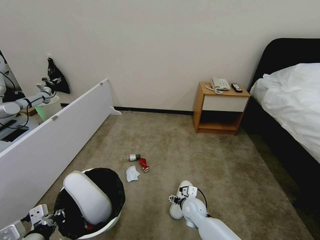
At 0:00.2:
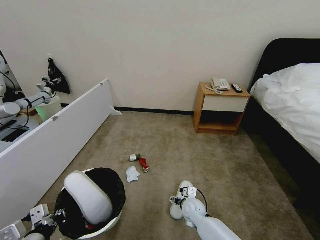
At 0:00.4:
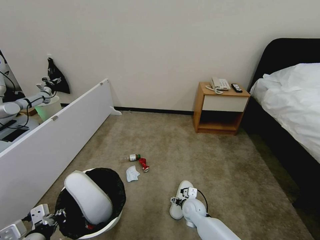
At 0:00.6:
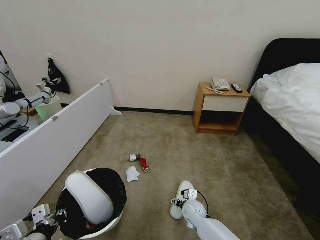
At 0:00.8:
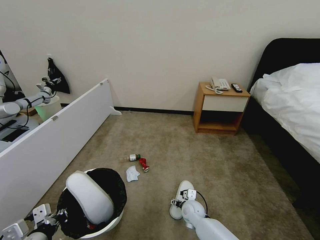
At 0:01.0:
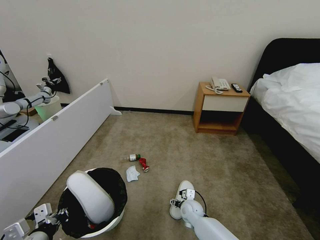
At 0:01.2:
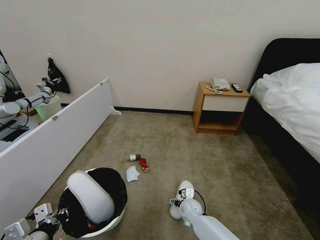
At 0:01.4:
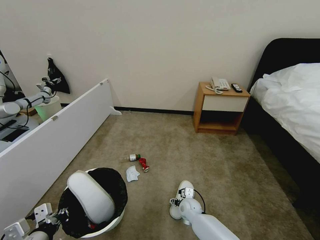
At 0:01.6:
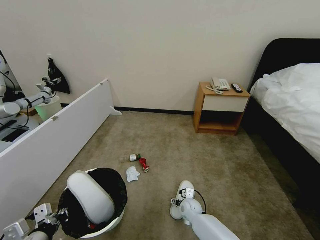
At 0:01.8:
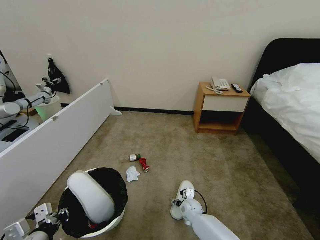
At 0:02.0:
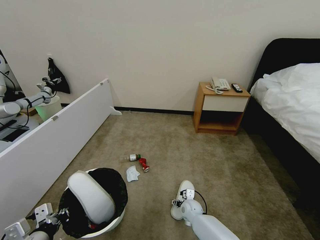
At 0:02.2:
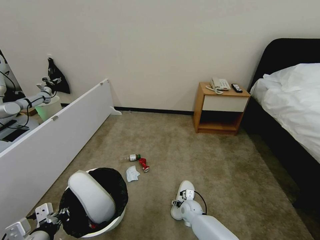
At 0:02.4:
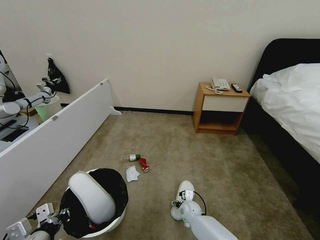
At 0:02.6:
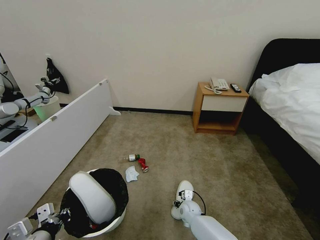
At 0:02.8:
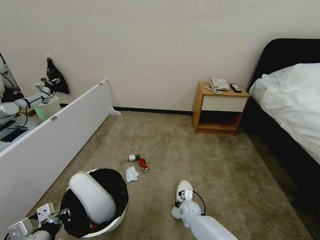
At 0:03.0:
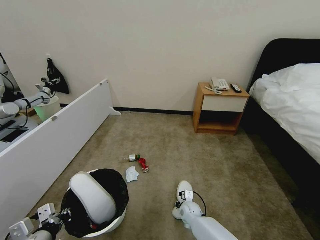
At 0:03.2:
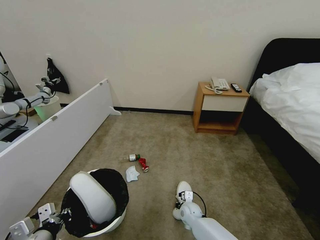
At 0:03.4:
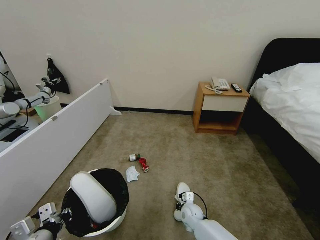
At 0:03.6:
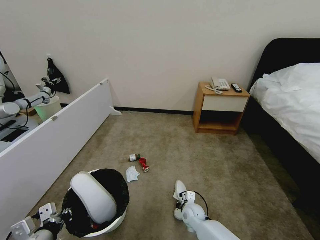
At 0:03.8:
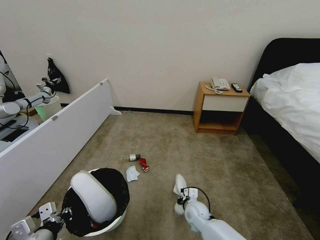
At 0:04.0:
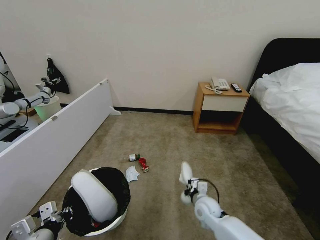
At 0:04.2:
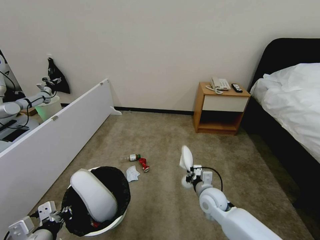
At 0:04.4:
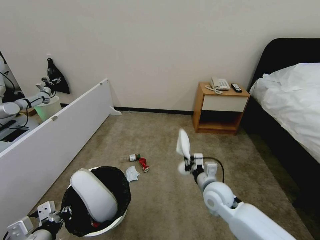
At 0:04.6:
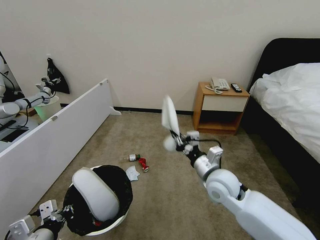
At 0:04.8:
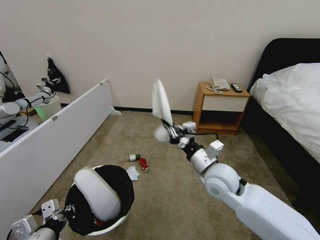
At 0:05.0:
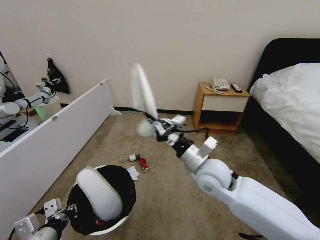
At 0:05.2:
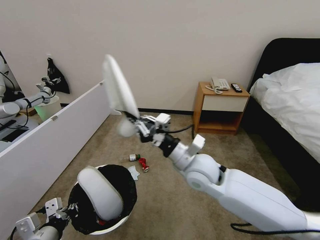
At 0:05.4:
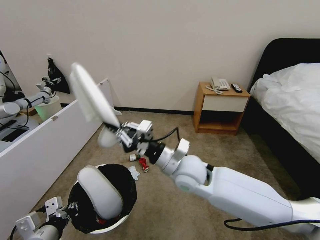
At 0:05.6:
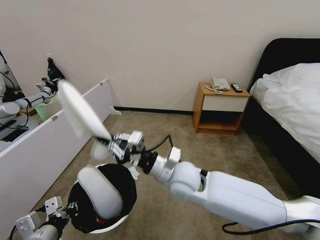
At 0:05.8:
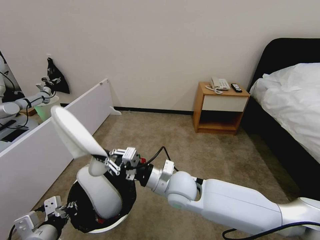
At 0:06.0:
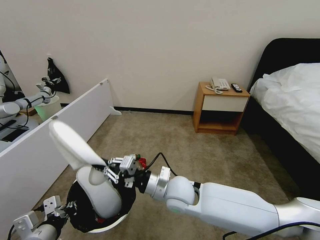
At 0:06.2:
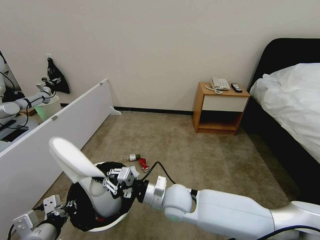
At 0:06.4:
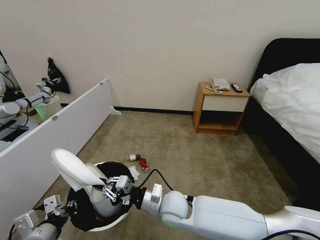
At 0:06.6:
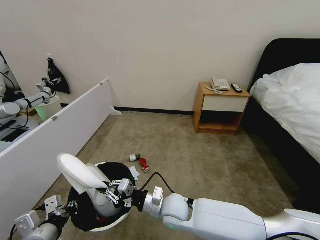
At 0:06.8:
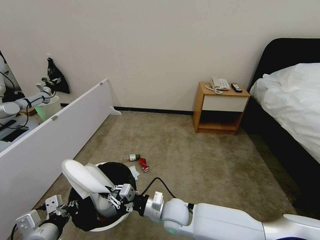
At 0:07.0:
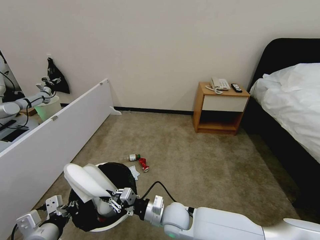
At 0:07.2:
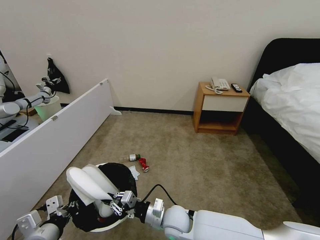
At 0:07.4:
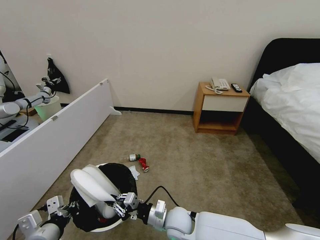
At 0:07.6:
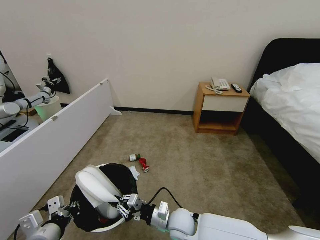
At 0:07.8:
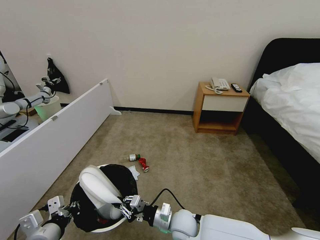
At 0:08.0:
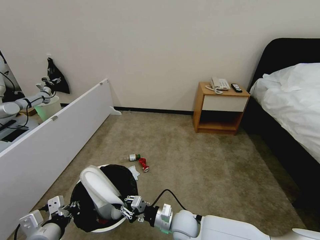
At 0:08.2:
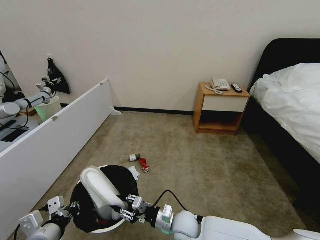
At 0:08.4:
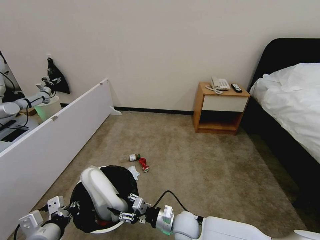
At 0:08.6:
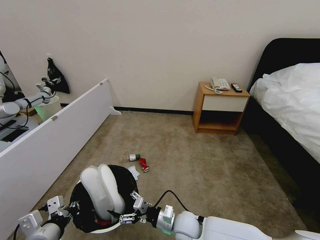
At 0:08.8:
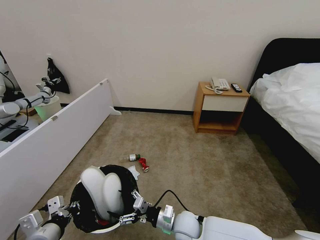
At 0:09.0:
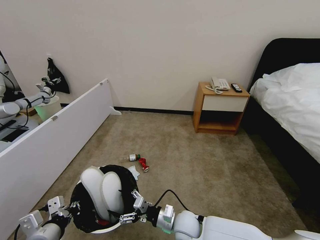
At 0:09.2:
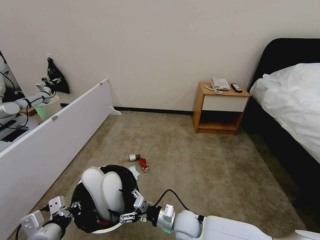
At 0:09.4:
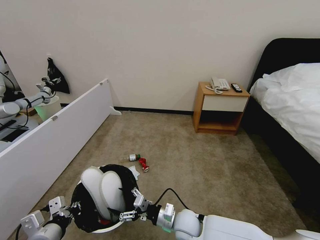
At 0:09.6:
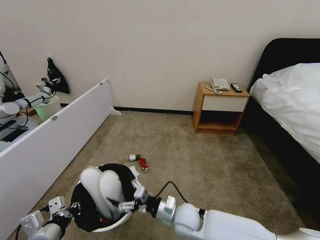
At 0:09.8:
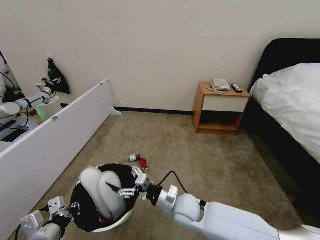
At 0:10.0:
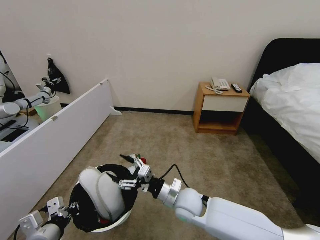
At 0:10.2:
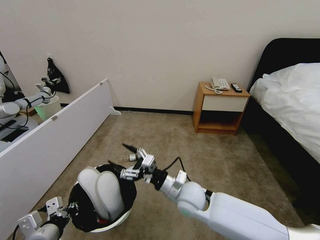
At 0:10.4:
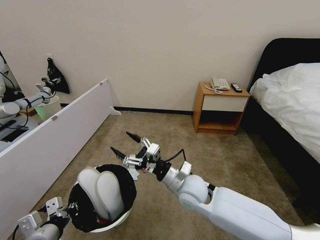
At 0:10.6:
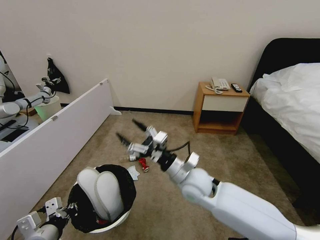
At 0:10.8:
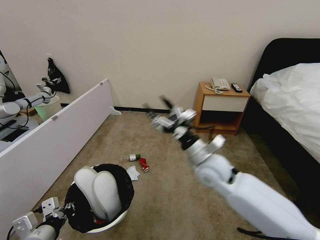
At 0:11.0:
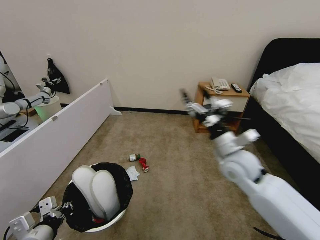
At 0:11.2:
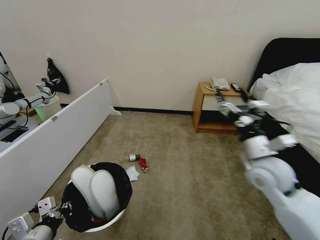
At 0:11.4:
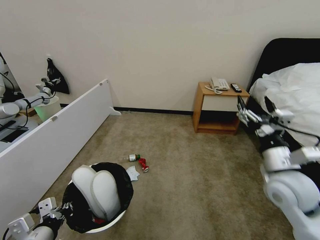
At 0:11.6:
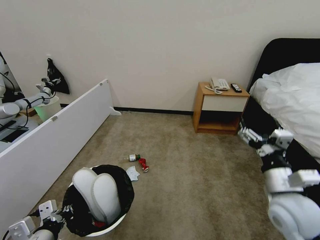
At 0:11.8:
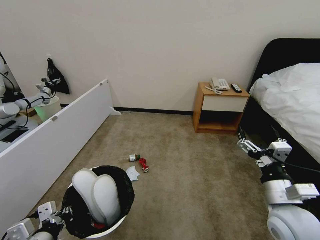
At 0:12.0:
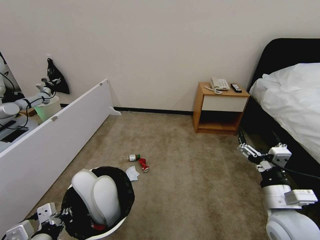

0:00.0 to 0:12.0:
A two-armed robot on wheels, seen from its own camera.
Task of the whole recording: Pick up the trash bin and place the garbage on the floor into it.
0:00.0 to 0:01.6: The right gripper is displaced downward by approximately 5 cm.
0:01.6 to 0:03.0: The right gripper closes up.
0:03.0 to 0:04.4: The right gripper moves upward, approximately 20 cm.
0:04.4 to 0:06.0: The right gripper moves to the left, roughly 15 cm.
0:06.0 to 0:07.6: The right gripper shifts some 15 cm downward.
0:07.6 to 0:09.0: The right gripper opens.
0:09.0 to 0:10.4: The right gripper goes about 15 cm upward.
0:10.4 to 0:12.0: The right gripper travels to the right and backward by some 25 cm.

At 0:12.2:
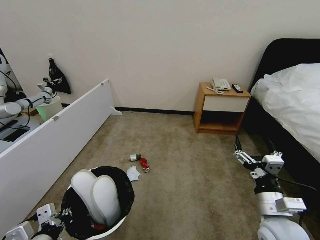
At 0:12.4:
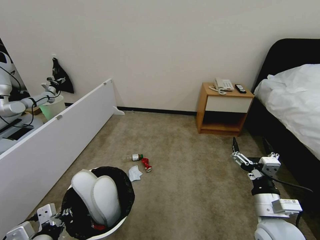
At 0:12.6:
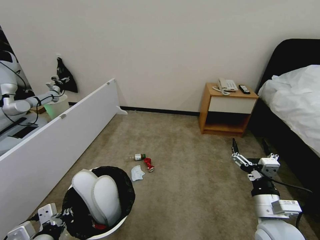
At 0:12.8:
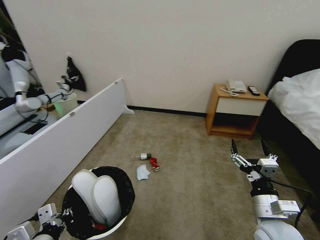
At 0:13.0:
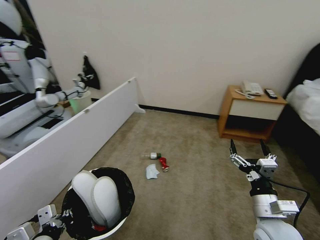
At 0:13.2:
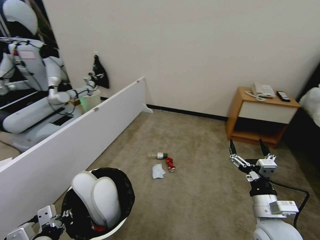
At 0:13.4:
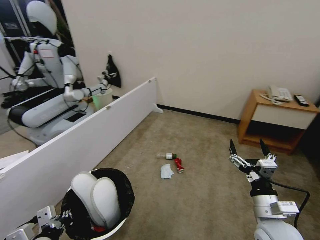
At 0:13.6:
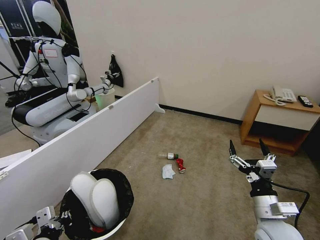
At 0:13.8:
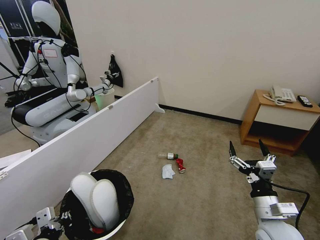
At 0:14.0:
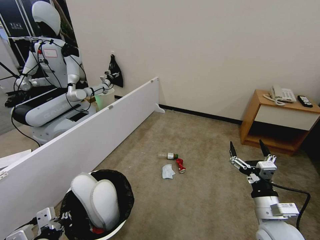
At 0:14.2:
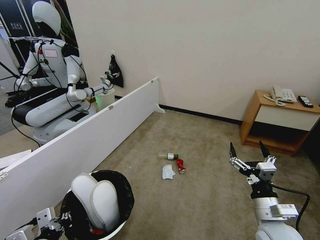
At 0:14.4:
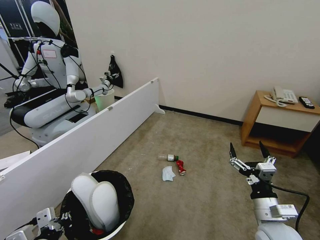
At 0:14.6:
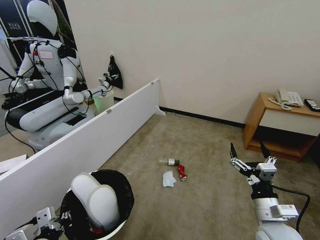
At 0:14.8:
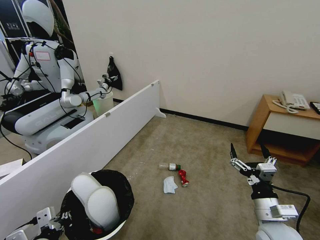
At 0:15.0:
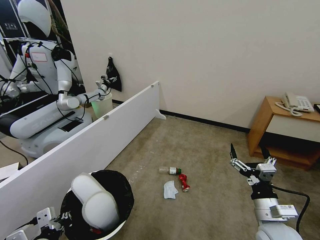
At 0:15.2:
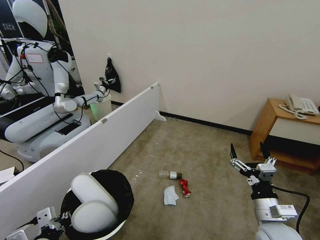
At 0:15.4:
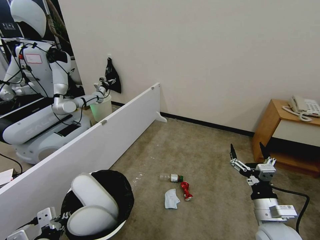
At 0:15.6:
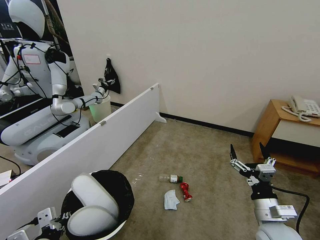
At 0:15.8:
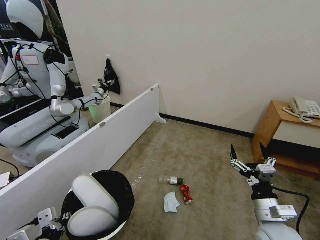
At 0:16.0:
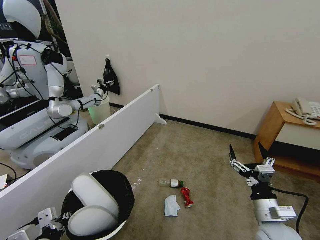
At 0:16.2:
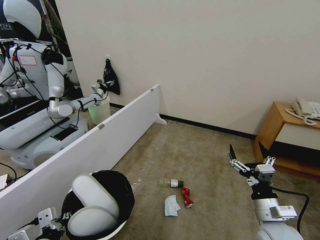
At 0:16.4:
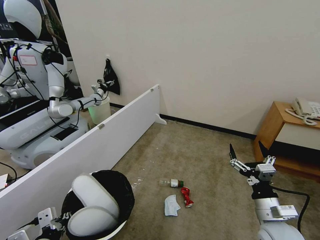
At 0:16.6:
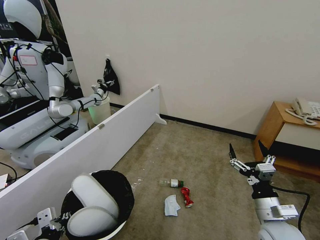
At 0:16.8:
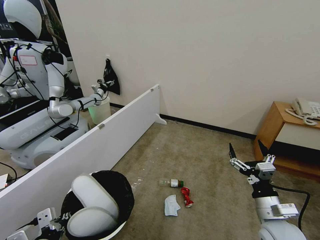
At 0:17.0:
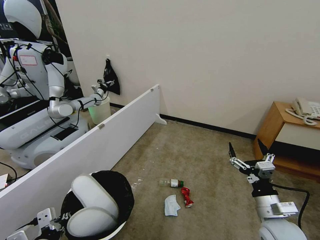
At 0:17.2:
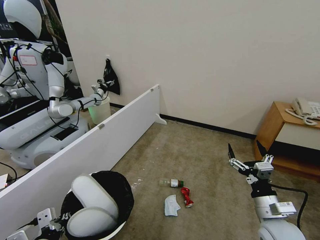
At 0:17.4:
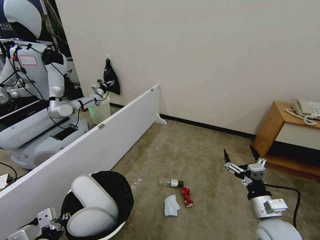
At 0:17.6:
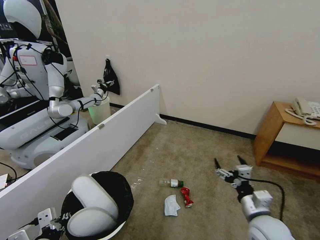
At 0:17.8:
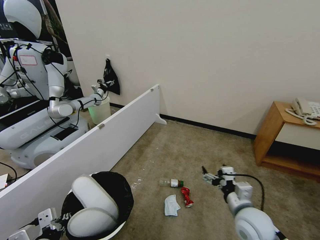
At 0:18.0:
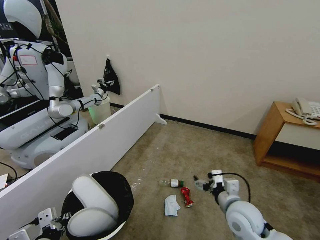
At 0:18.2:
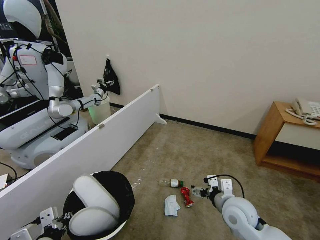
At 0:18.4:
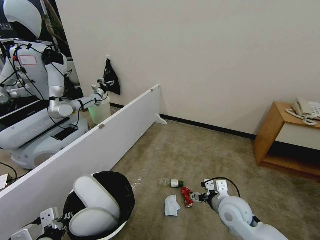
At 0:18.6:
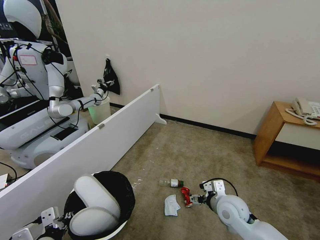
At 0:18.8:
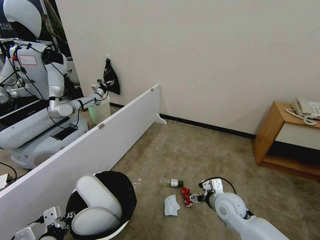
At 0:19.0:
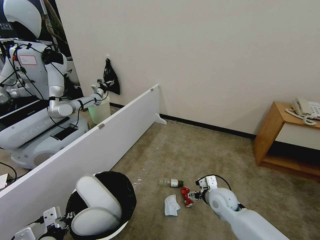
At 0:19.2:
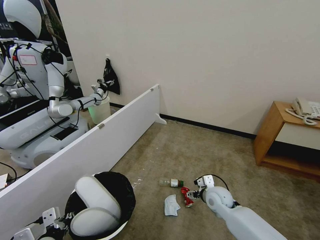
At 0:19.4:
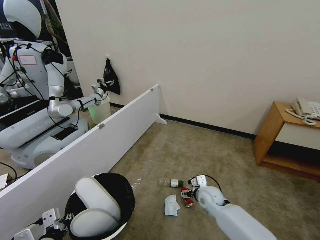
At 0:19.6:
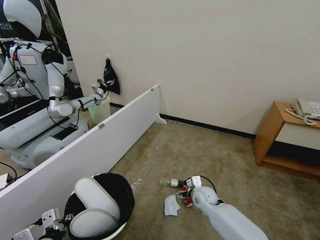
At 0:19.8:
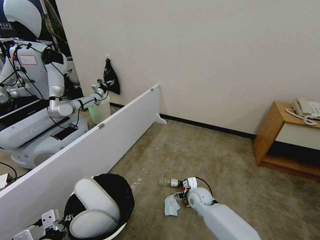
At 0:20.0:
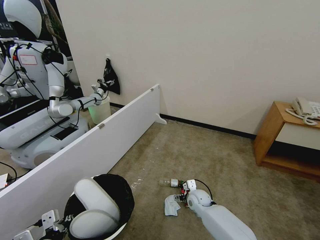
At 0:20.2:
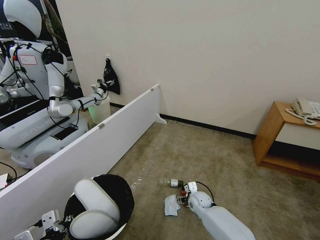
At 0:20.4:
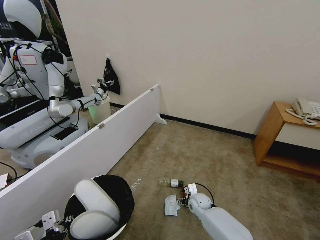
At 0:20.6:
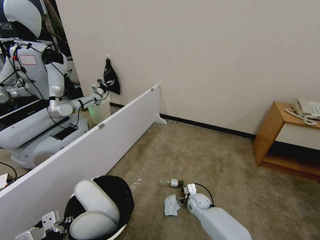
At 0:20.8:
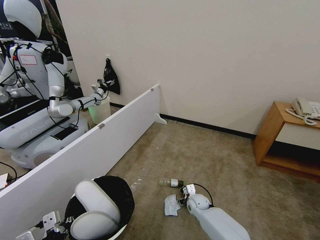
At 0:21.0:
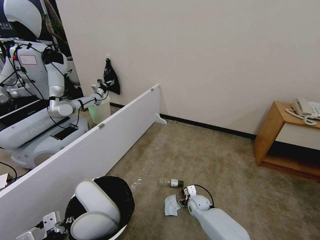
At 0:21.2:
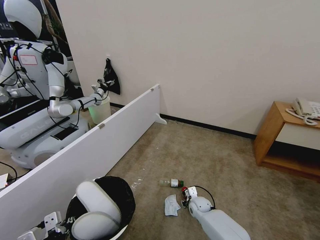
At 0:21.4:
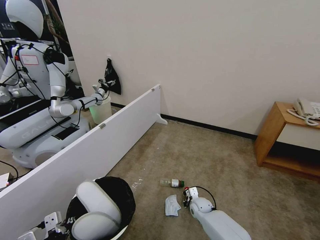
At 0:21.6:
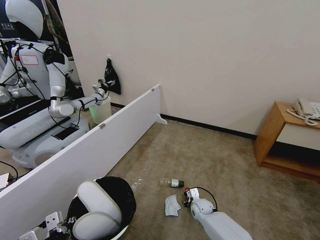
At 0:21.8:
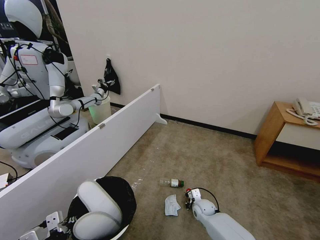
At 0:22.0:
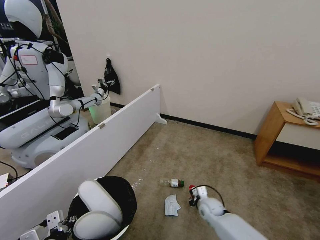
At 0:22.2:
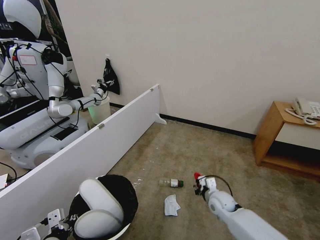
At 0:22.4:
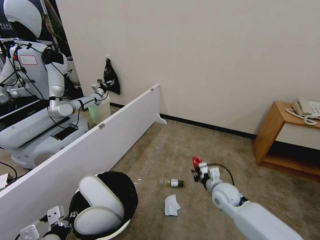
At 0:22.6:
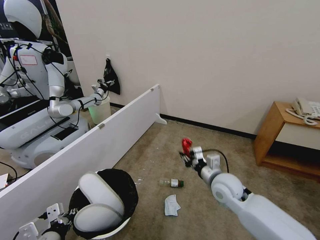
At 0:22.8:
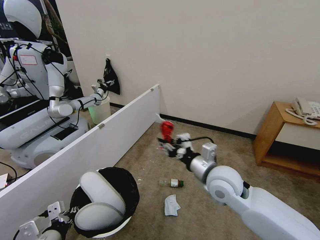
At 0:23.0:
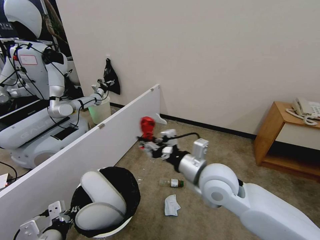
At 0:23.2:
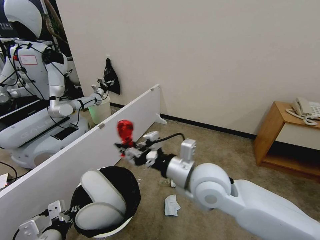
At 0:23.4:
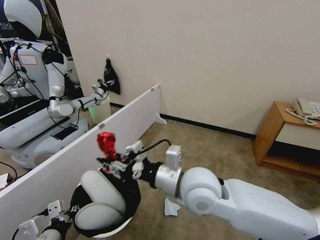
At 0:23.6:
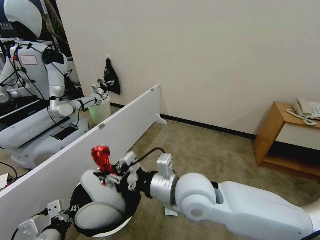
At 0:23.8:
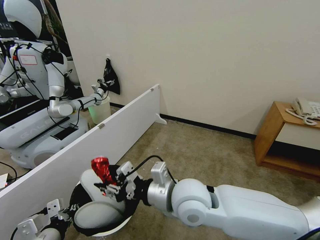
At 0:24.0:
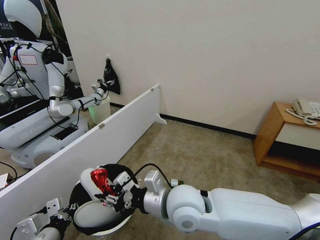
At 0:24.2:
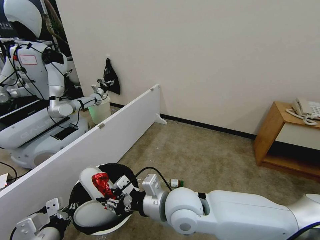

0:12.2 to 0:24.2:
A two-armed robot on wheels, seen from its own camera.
Task of the whole recording: Pick up the trash bin and place the garbage on the floor into it.
0:15.2 to 0:16.6: Both grippers stay about where they are.
0:16.6 to 0:18.2: The right gripper shifts some 10 cm to the left and forward.
0:18.2 to 0:19.8: The right gripper shifts about 20 cm downward, forward and to the left.
0:19.8 to 0:21.2: The right gripper is displaced downward by about 10 cm, and closes its fingers.
0:21.2 to 0:22.6: The right gripper goes some 15 cm upward.
0:22.6 to 0:24.2: The right gripper heads to the left, upward and backward, covering some 25 cm.
